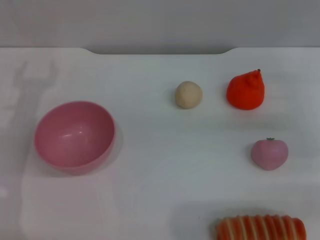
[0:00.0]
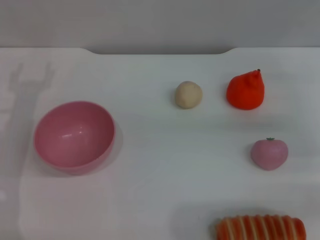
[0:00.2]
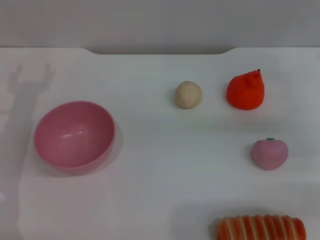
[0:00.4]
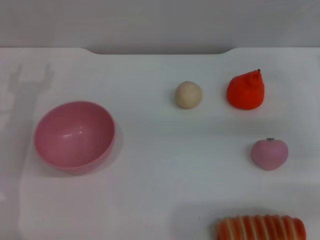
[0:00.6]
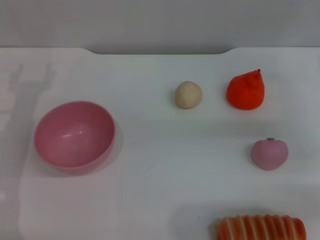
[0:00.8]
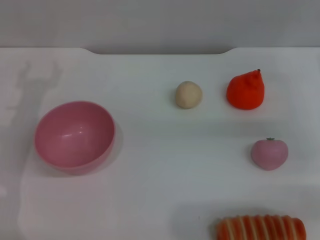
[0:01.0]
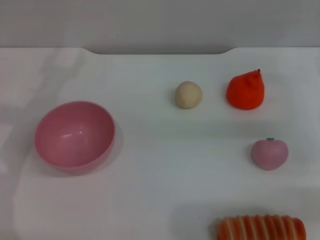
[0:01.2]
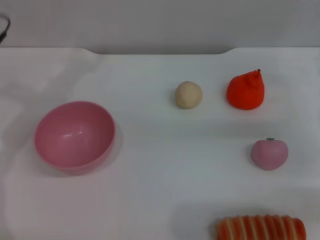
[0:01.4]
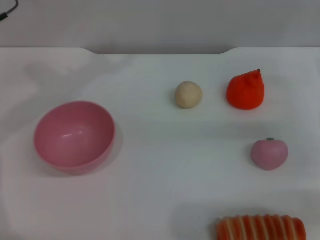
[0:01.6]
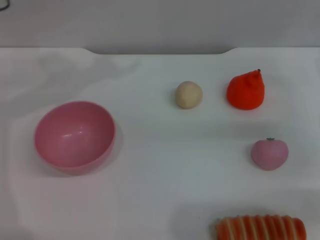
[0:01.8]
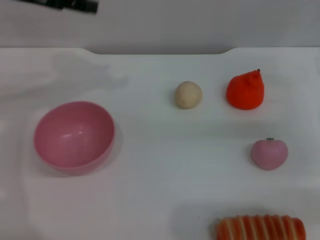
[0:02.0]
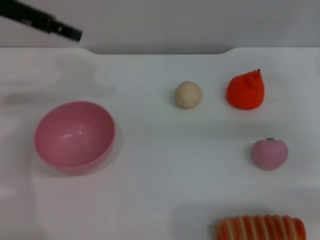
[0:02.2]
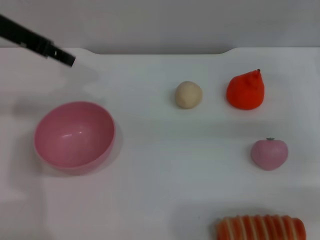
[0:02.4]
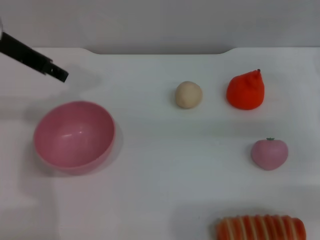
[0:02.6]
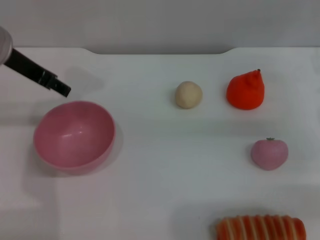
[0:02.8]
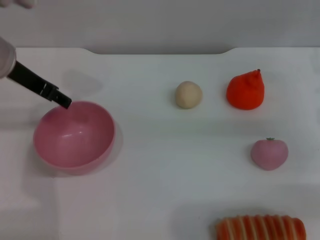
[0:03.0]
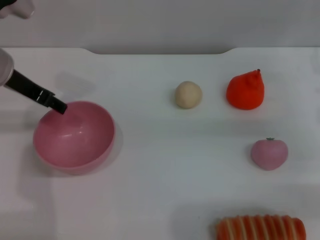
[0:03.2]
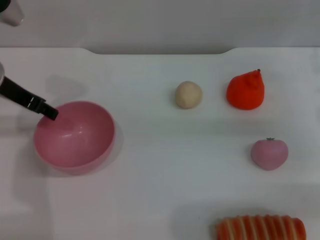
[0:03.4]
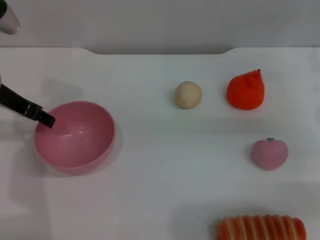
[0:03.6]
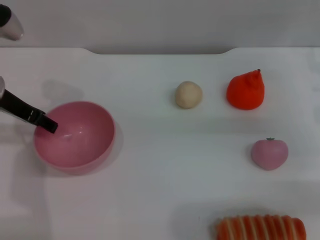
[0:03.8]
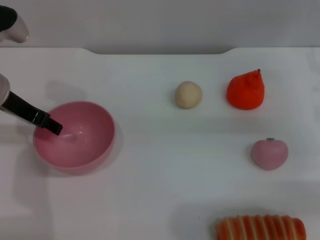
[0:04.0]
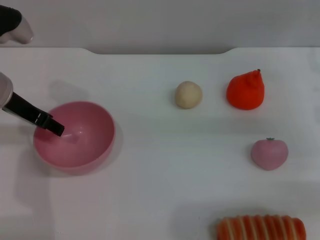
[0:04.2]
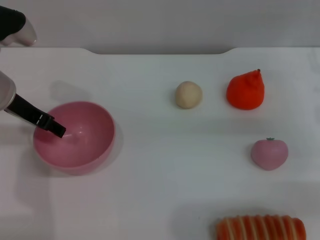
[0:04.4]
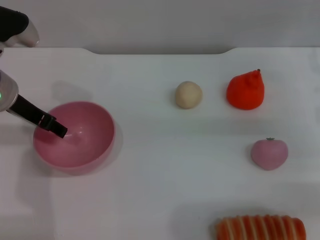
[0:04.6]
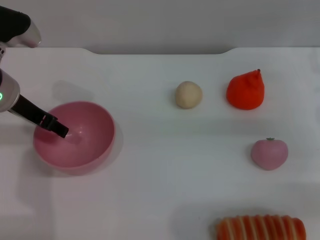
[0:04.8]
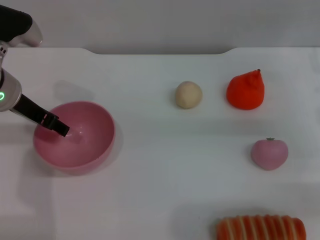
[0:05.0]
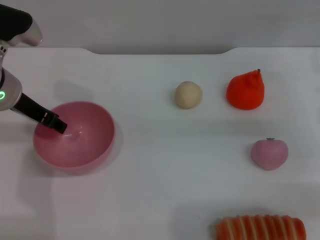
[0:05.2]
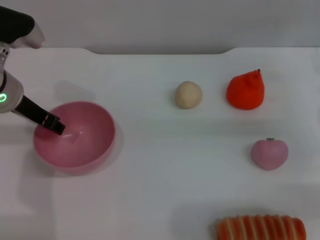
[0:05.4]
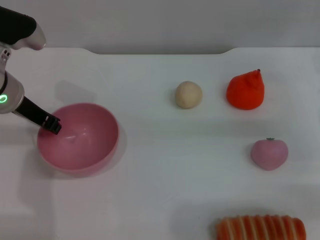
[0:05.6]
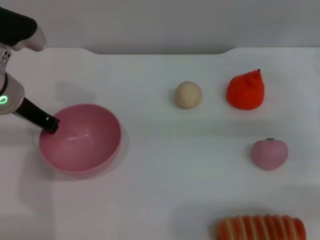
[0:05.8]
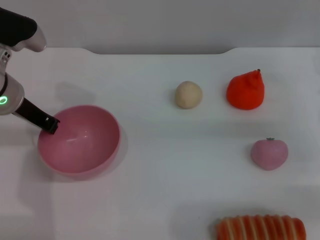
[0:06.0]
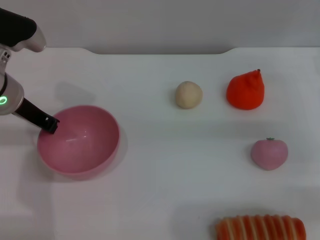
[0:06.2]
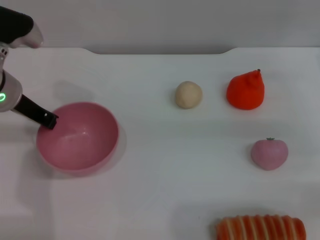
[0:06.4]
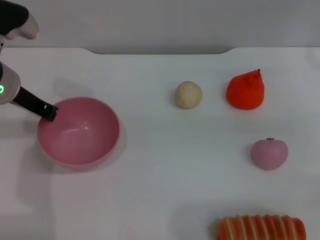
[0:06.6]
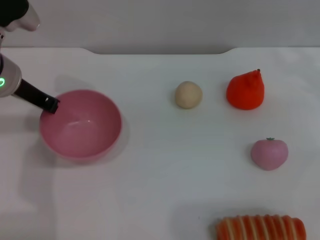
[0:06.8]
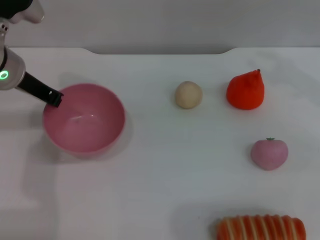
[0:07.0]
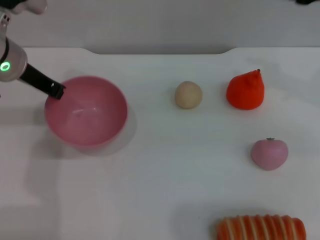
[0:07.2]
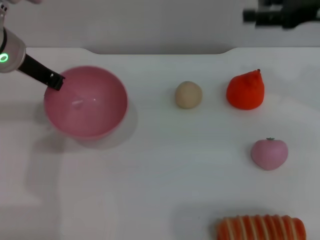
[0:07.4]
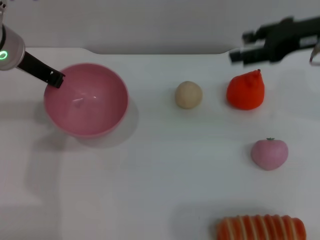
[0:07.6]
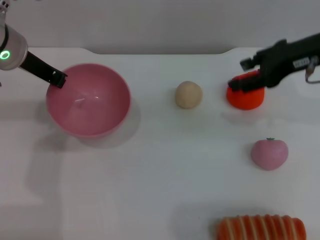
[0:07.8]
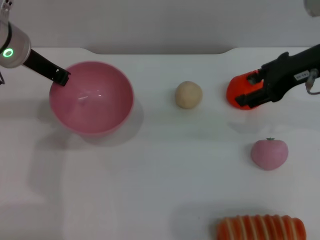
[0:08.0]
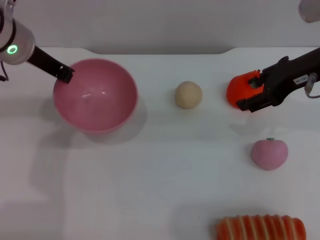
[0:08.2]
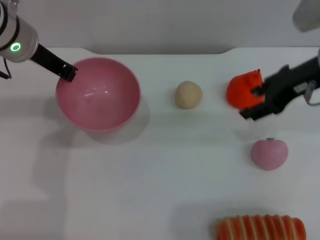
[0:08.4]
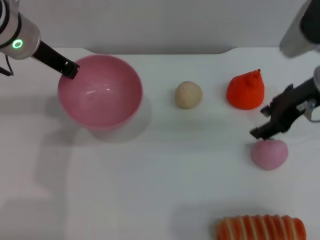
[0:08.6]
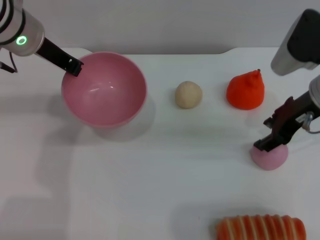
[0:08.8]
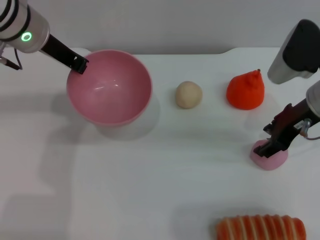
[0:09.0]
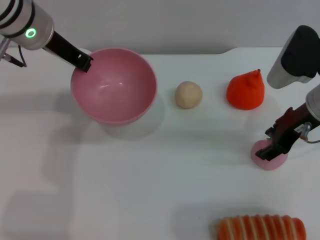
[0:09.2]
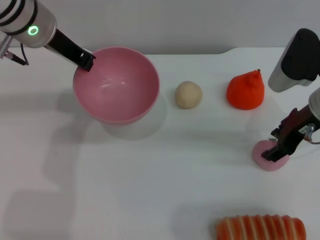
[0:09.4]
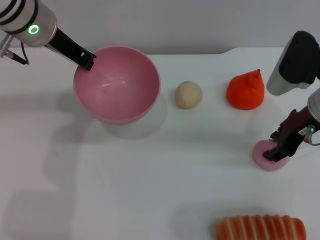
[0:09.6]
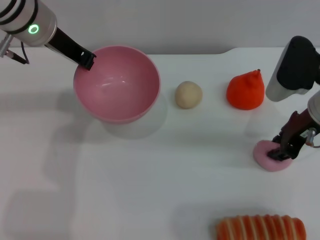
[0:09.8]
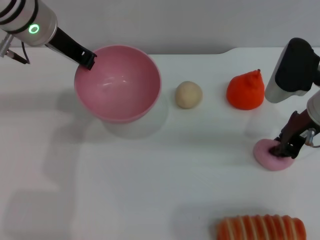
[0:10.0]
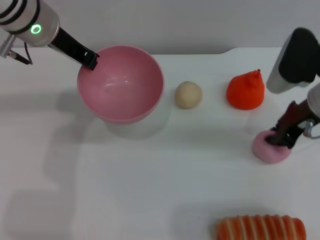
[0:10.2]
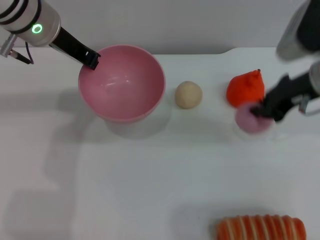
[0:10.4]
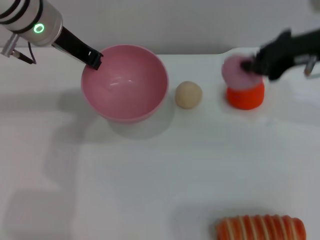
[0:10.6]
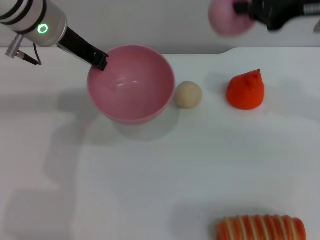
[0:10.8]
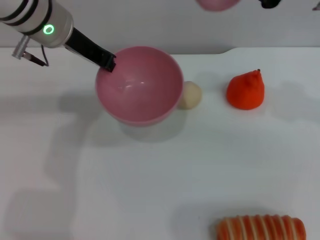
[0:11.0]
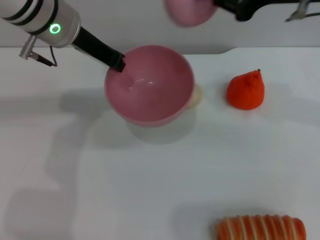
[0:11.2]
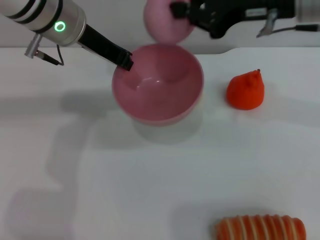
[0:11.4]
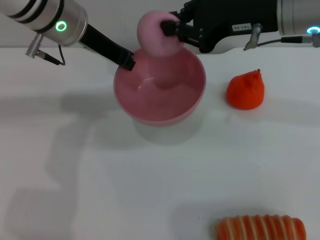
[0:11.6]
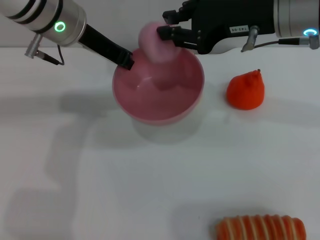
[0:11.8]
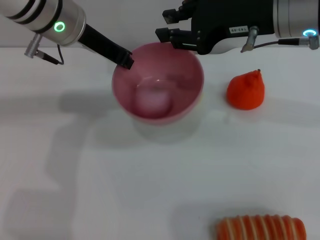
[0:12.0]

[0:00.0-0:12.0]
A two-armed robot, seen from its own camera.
Task of the whole recording: put the peach into the pink bowl and pour it out repeatedly.
Step, 0:00.0 to 0:07.8: Pick up the bowl with the left gripper.
Step, 0:08.0 to 0:10.4: Pick up the peach with the right gripper.
0:03.0 to 0:04.4: The grippers stay close to where they were, moving slightly.
0:04.4 to 0:06.0: The left gripper closes up.
0:06.0 to 0:07.6: The left gripper shifts some 5 cm upward, while the right gripper shifts about 15 cm upward and to the left.
0:07.6 to 0:09.0: The right gripper heads downward, covering some 5 cm.
0:09.0 to 0:10.4: The right gripper closes its fingers.
0:10.4 to 0:12.0: The right gripper travels upward and to the left by roughly 10 cm.

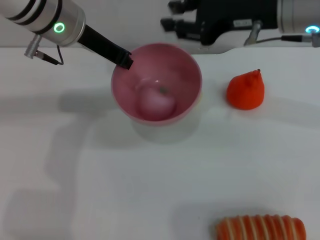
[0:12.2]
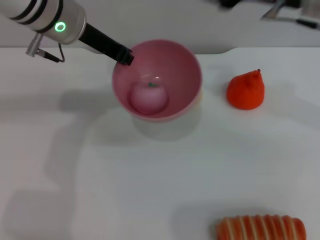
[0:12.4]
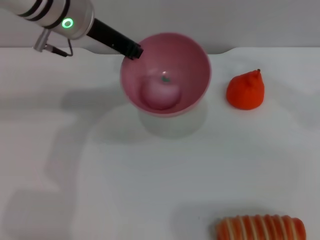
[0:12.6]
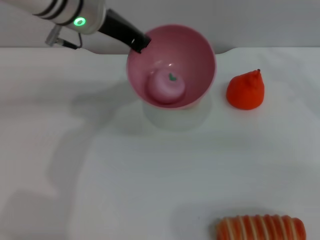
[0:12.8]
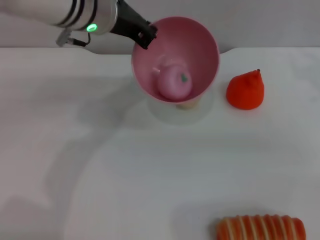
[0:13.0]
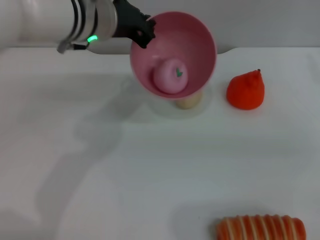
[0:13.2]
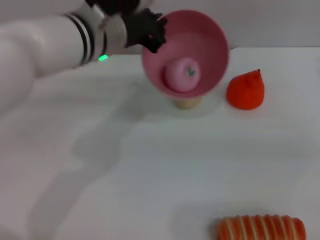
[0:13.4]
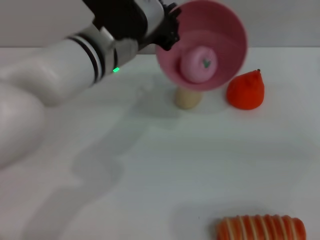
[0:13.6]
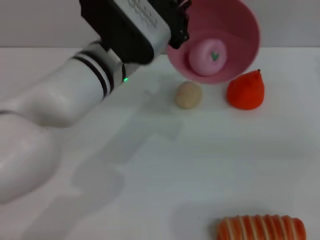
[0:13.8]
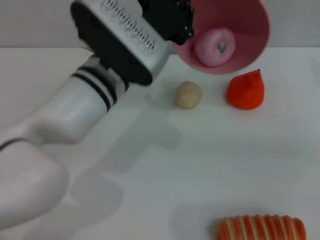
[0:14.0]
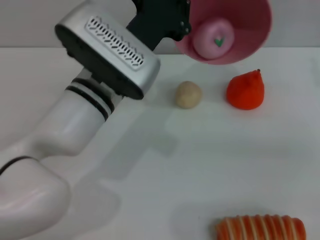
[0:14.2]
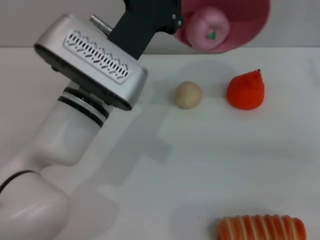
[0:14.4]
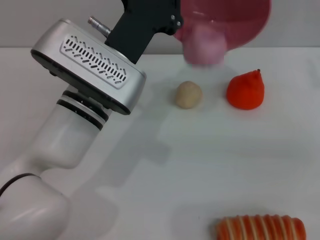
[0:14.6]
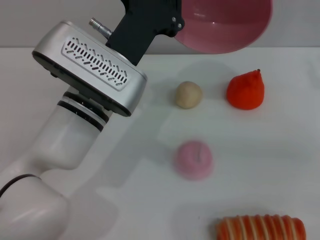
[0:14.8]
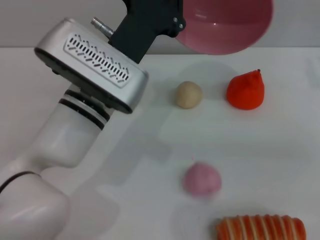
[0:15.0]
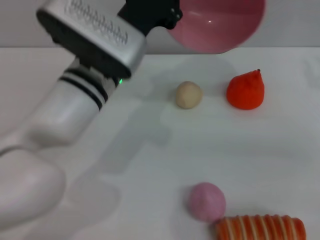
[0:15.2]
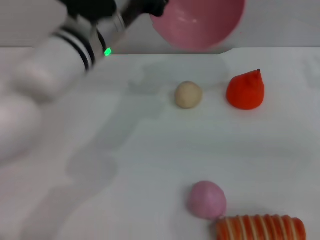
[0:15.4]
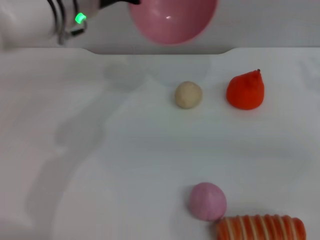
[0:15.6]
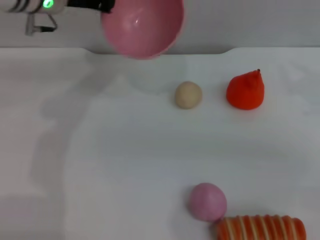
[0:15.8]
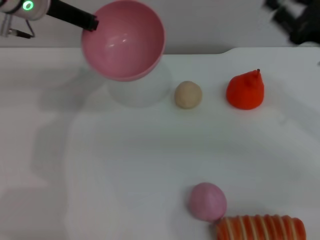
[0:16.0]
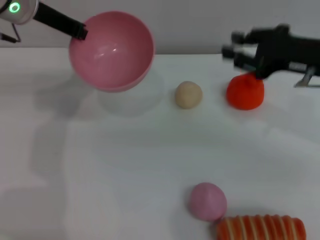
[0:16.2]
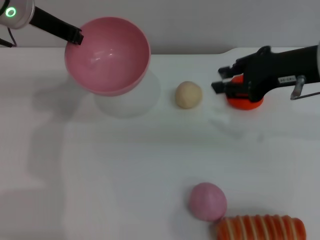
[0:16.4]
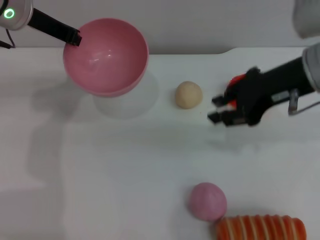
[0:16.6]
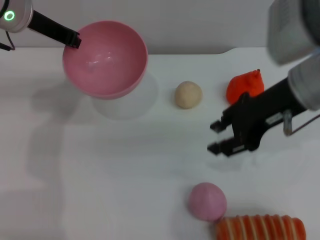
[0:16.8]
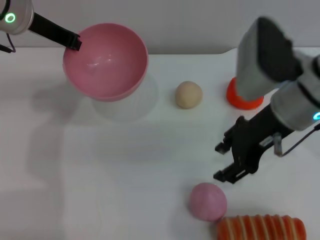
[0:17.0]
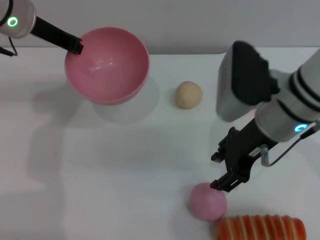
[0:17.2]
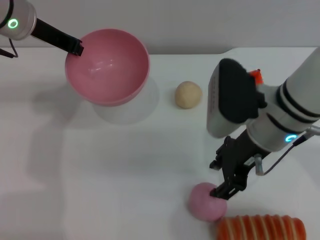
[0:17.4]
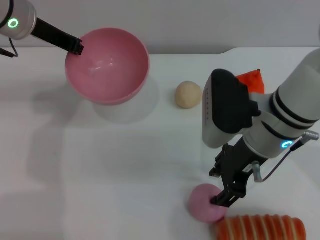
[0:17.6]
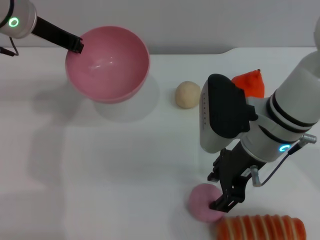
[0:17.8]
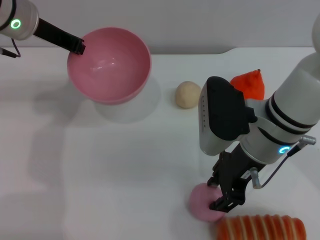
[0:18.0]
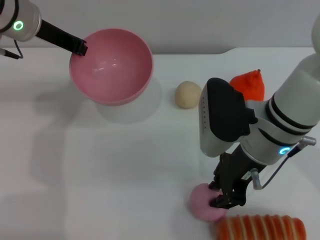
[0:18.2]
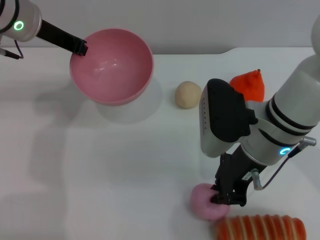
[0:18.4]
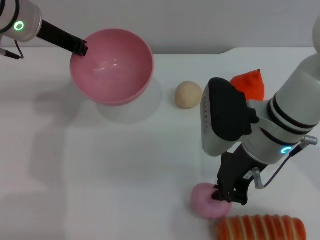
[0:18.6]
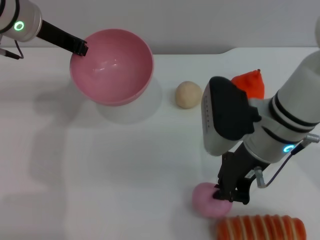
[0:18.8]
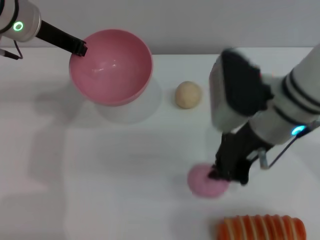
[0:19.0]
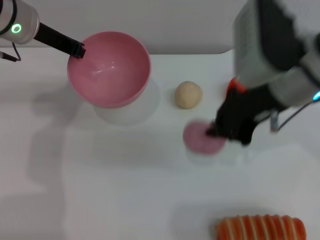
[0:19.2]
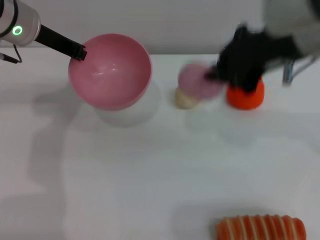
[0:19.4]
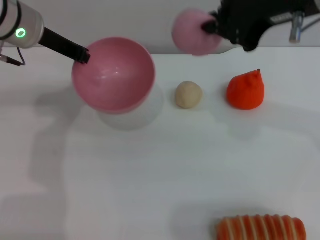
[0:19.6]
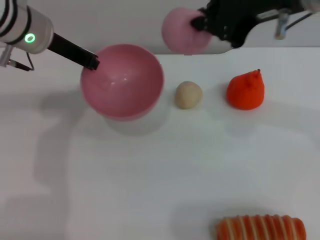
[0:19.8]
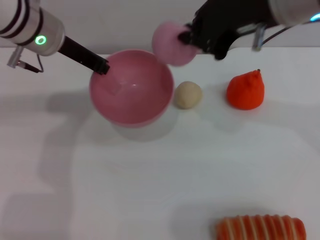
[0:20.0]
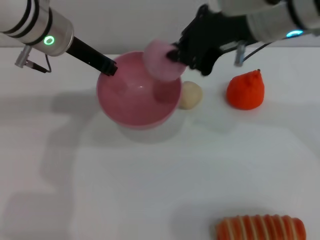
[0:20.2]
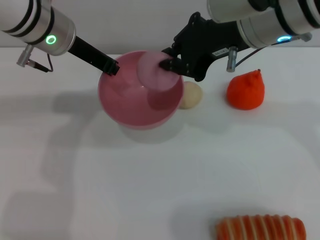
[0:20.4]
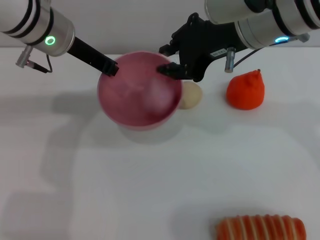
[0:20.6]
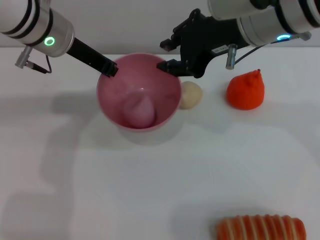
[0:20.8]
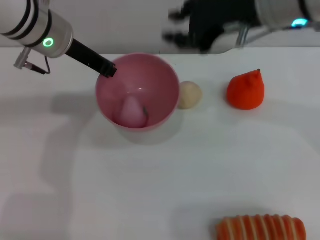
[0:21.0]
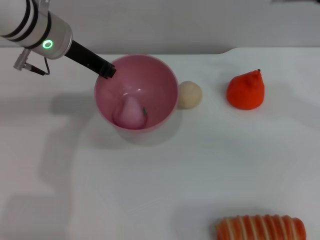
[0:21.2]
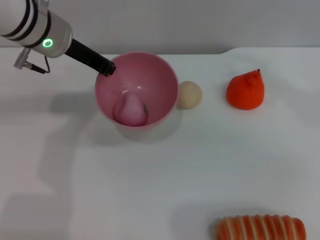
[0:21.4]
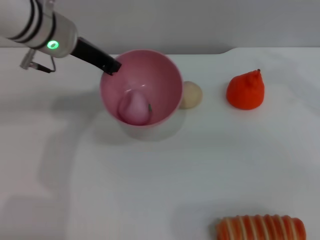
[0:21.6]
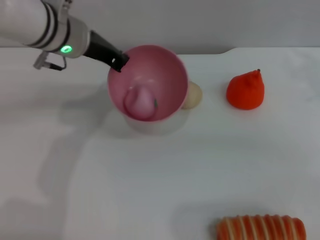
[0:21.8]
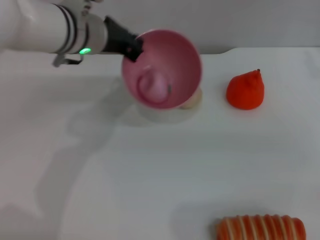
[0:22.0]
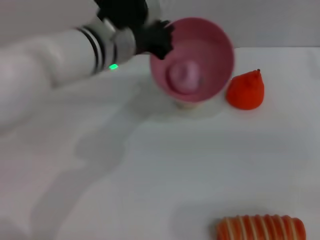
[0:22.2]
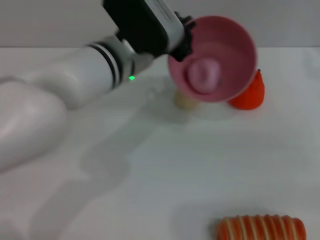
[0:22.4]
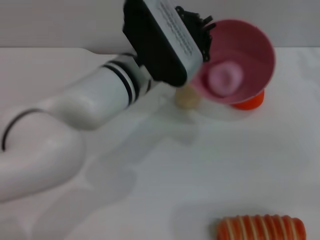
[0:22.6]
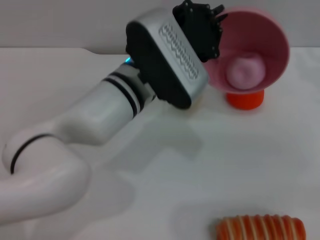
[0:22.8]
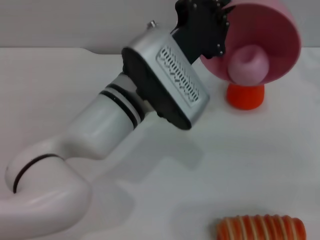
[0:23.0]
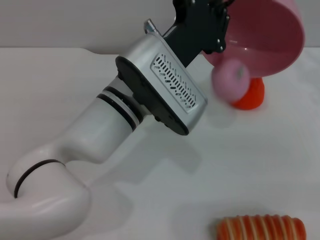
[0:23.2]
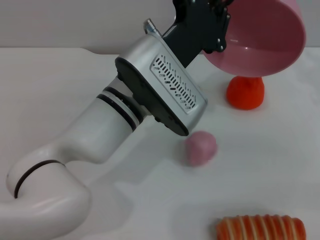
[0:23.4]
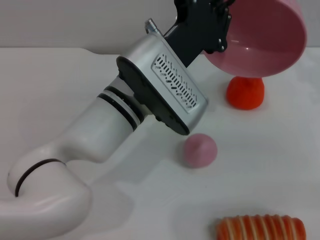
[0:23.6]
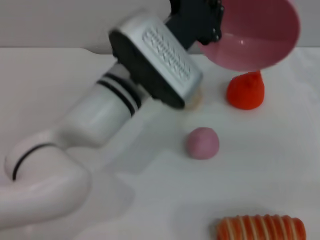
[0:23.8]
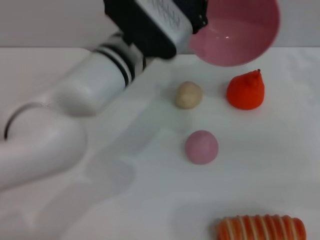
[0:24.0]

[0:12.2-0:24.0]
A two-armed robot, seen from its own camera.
Task of the whole recording: put the peach into the pink bowl and pour it out repeatedly.
Step, 0:12.4 to 0:15.0: Pour the peach out of bowl.
Step, 0:15.2 to 0:19.4: Pick up the peach with the right gripper.
Step, 0:19.6 to 0:20.8: Place the peach into the bowl.
Step, 0:21.0 to 0:23.8: Pour the peach out of bowl.
0:12.2 to 0:13.6: The left gripper heads to the right, covering roughly 5 cm. Meanwhile the right gripper is displaced to the right and downward by some 20 cm.
0:13.6 to 0:15.2: The left gripper shifts by approximately 5 cm.
0:15.2 to 0:16.6: The right gripper is displaced to the left and upward by some 15 cm, while the left gripper moves to the left, forward and upward, roughly 20 cm.
0:16.6 to 0:18.2: The right gripper travels downward and to the left by some 10 cm.
0:18.2 to 0:19.6: The right gripper goes some 20 cm upward, and closes up.
0:19.6 to 0:21.0: The right gripper is displaced downward by some 5 cm, and opens up.
0:21.0 to 0:22.6: The left gripper goes approximately 15 cm to the right, backward and downward. The right gripper heads to the right and downward, covering some 20 cm.
